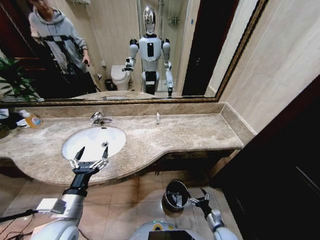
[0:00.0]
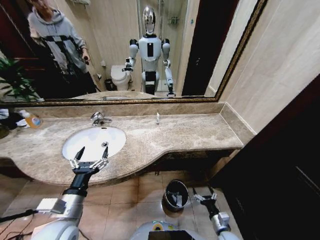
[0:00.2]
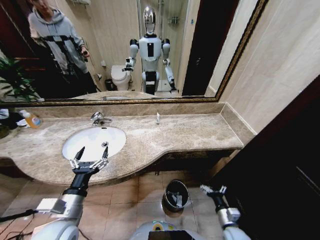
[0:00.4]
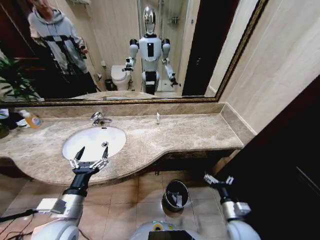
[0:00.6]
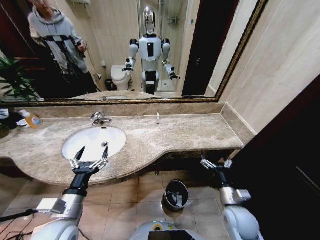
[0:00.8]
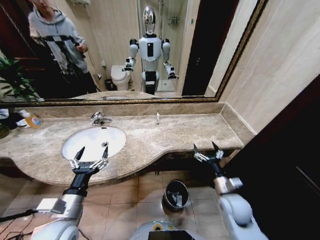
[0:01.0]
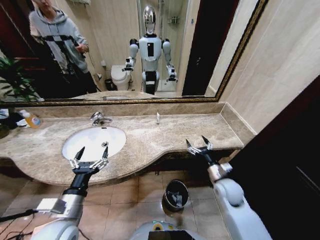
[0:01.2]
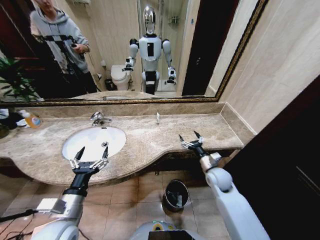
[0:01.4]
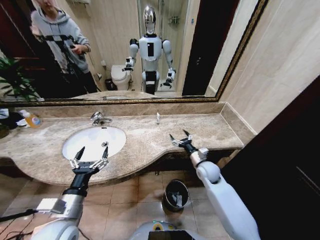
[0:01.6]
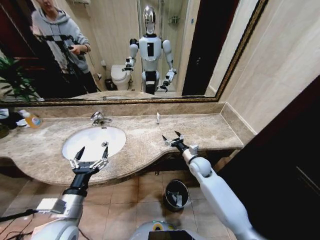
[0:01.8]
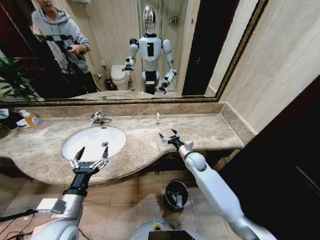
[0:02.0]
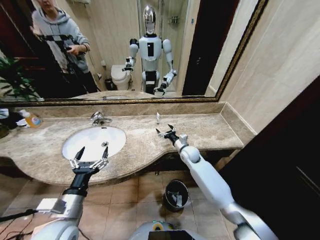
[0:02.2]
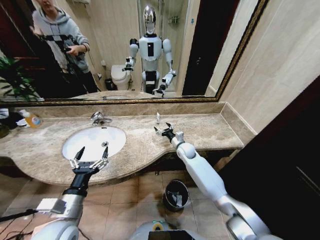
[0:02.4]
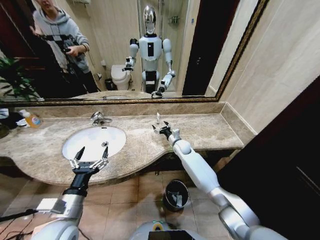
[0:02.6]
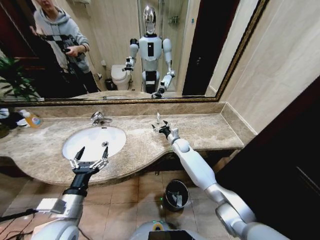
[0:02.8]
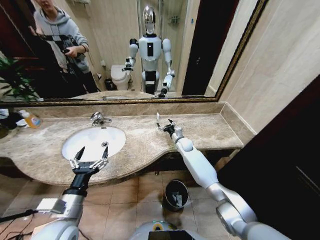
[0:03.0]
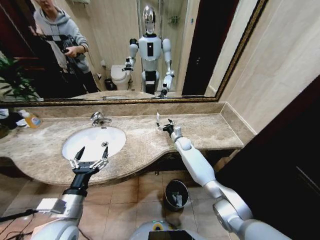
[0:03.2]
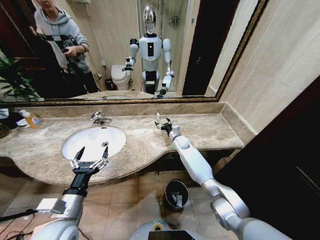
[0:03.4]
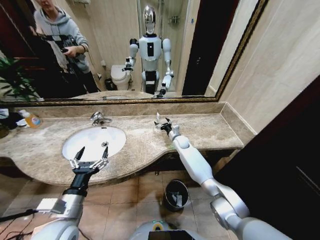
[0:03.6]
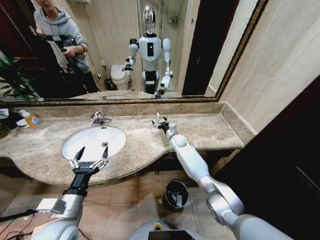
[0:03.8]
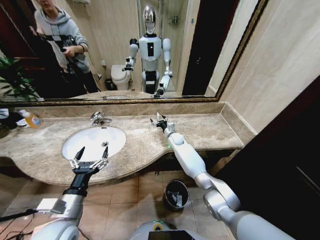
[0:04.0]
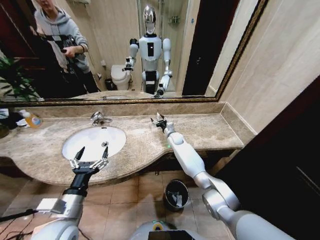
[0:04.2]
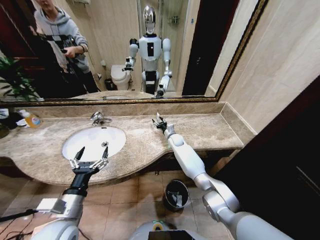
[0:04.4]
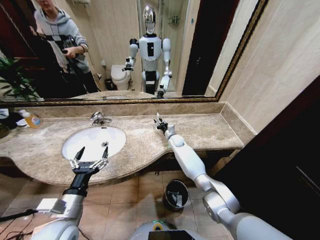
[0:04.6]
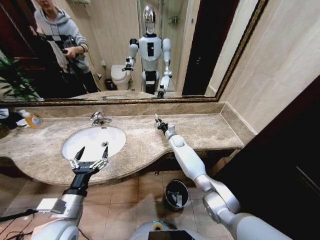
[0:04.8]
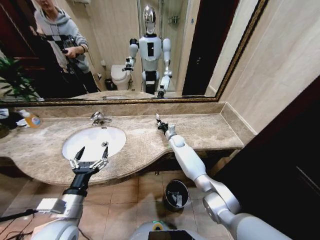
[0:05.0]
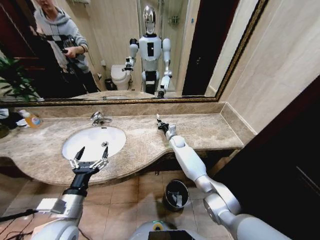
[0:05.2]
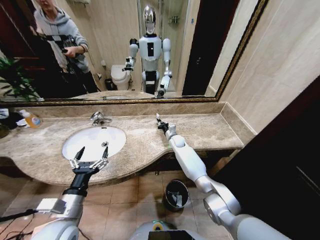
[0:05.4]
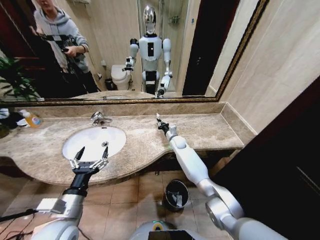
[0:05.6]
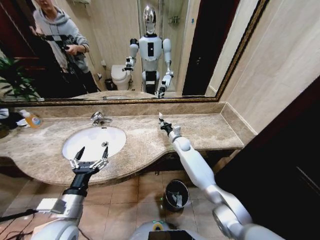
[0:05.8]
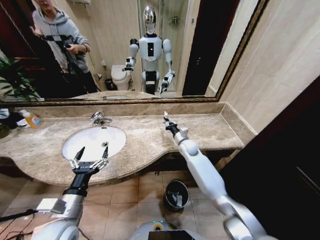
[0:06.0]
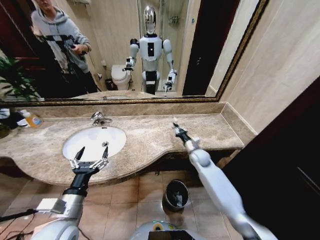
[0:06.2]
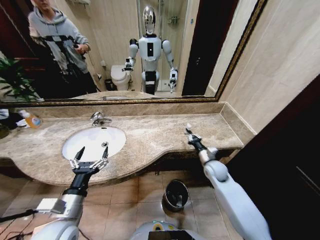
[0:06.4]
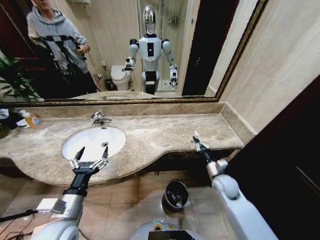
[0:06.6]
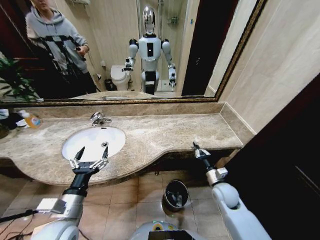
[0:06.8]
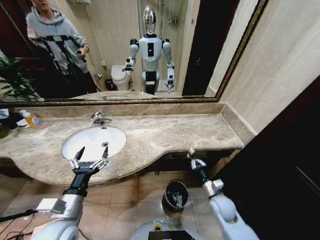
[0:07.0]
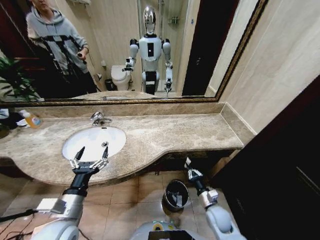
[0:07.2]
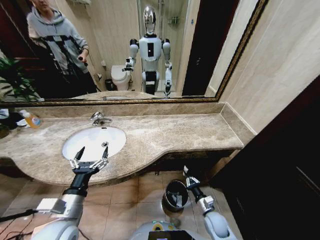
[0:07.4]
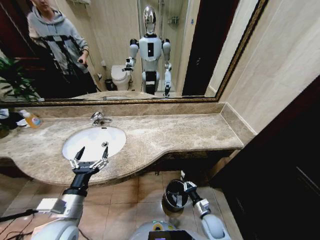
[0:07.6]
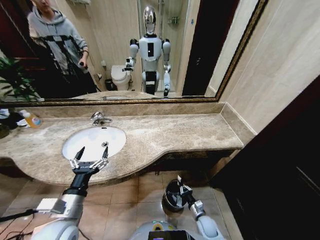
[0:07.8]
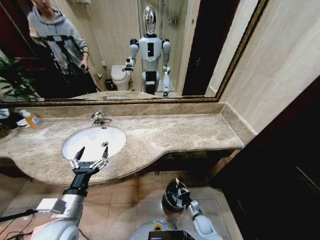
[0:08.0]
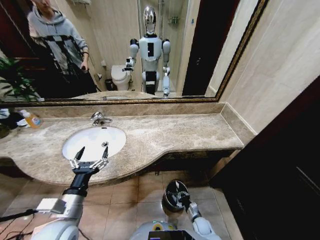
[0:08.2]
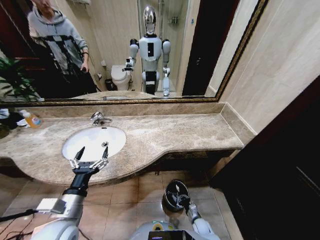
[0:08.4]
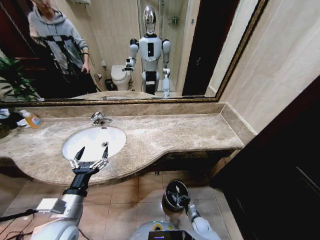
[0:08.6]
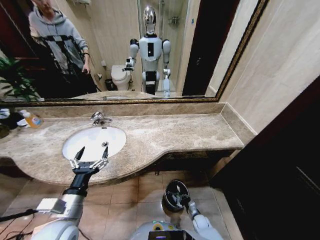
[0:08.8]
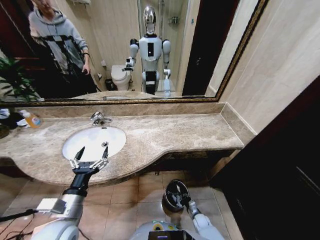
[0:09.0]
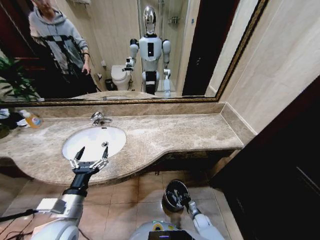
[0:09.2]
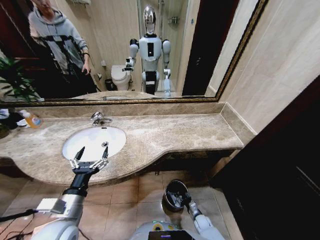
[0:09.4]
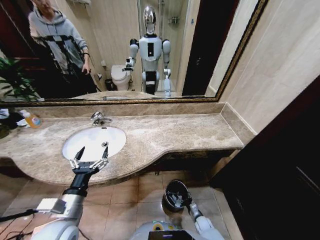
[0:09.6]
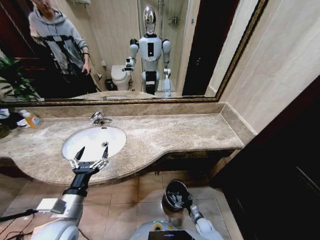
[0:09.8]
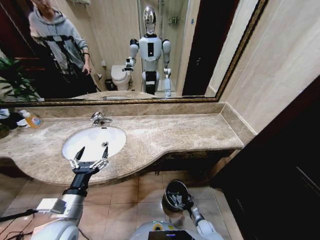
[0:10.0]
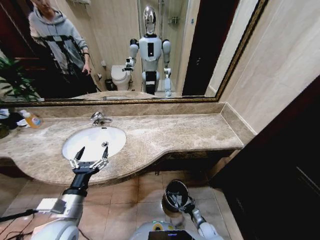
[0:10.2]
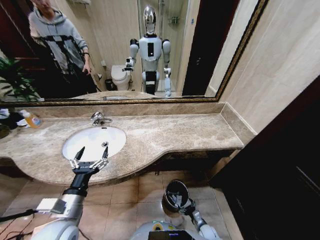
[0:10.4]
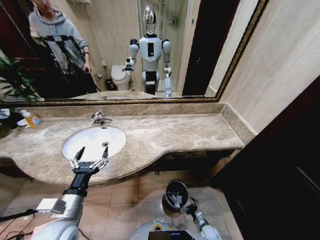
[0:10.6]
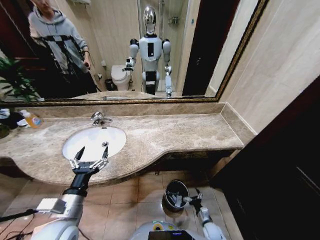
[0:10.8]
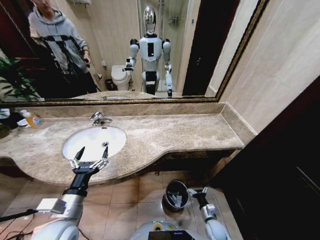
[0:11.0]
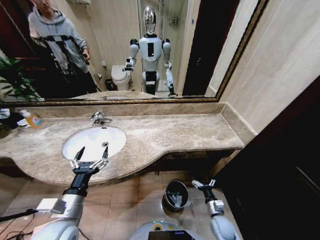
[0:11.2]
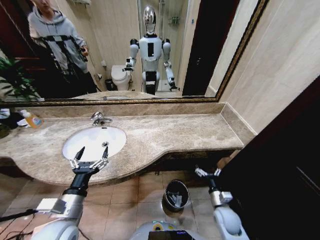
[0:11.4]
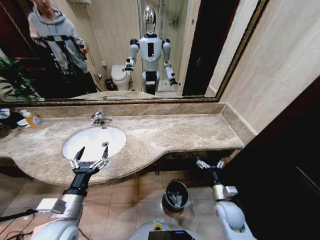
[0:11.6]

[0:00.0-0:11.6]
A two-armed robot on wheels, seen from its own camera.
Task of the whole recording: Pick up the trash from the sink and place it in the trash bin.
0:00.0 to 0:01.4: The right gripper travels upward and forward by roughly 30 cm.
0:01.4 to 0:02.8: The right gripper is displaced forward and to the left by approximately 25 cm.
0:02.8 to 0:04.4: The right gripper shifts by some 5 cm.
0:04.4 to 0:05.8: The right gripper goes some 5 cm backward, and closes up.
0:05.8 to 0:07.2: The right gripper heads backward, covering approximately 30 cm.
0:07.2 to 0:08.8: The right gripper is displaced downward by approximately 20 cm.
0:08.8 to 0:10.2: The right gripper opens up.
0:10.2 to 0:11.6: The right gripper is displaced upward by about 30 cm.

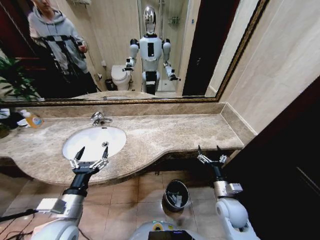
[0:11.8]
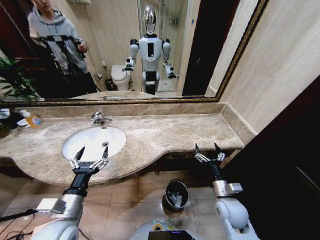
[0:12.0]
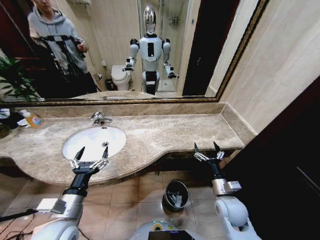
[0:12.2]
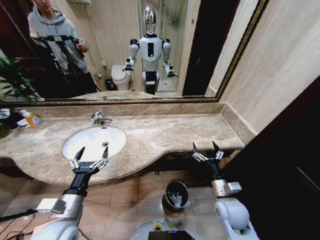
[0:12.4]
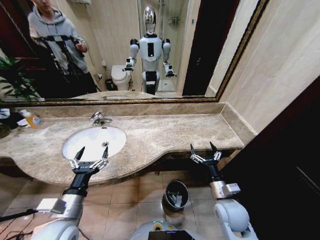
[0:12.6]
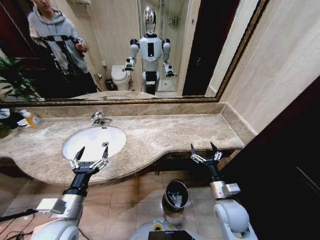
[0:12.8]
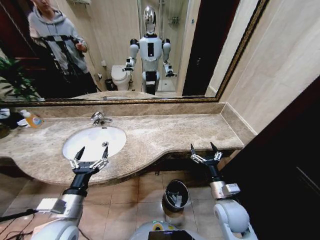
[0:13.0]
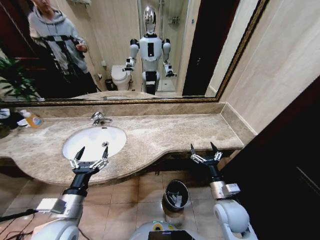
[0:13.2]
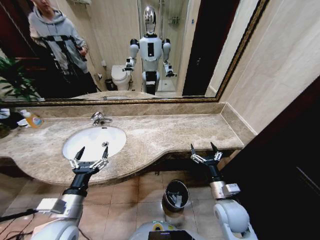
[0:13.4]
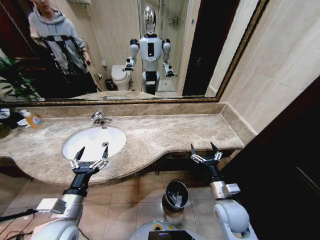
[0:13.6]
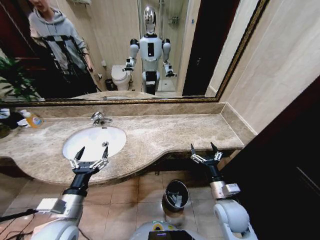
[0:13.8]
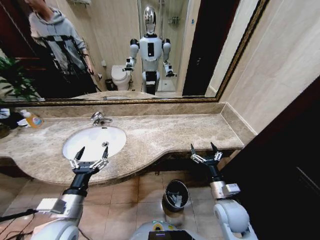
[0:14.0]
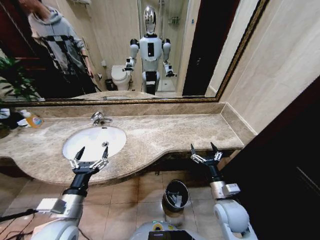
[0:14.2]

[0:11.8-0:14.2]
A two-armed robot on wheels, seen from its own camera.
Task of the whole recording: Pick up the trash from the sink and place it in the trash bin.
0:11.8 to 0:13.0: There are only small adjustments of the grippers.
0:13.0 to 0:14.2: Both grippers stay put.
